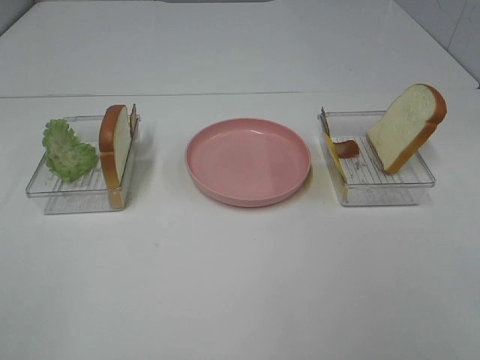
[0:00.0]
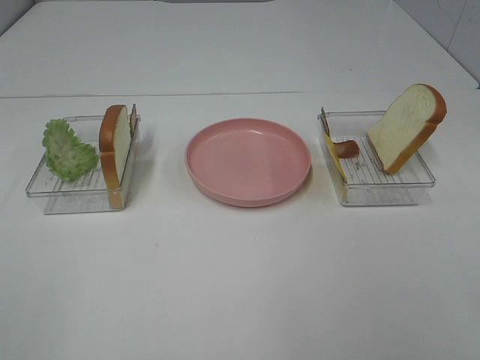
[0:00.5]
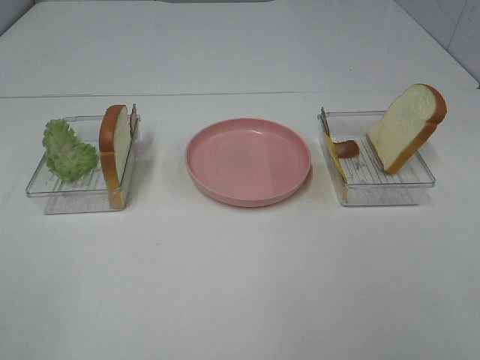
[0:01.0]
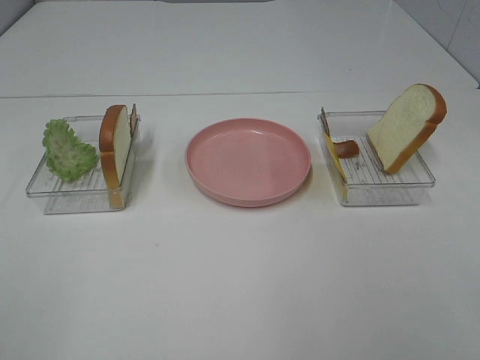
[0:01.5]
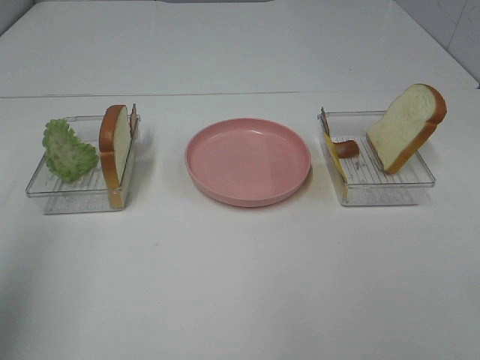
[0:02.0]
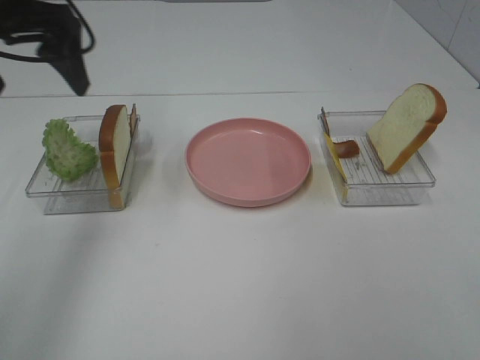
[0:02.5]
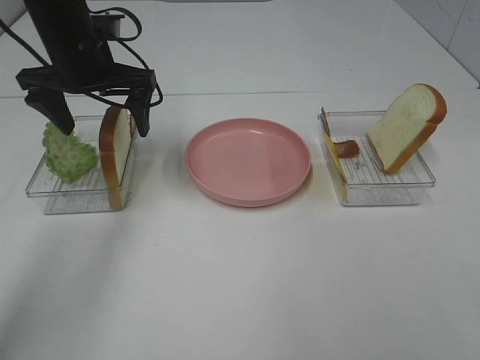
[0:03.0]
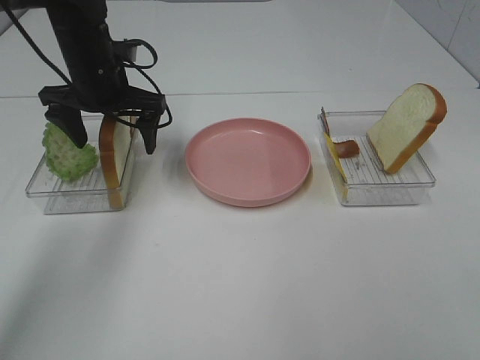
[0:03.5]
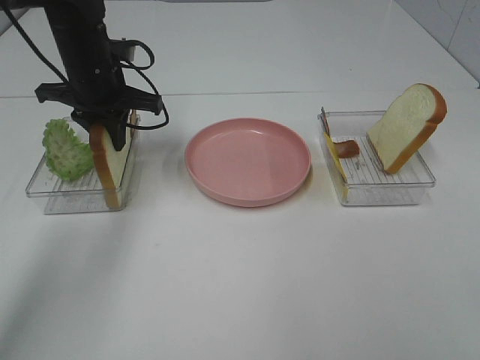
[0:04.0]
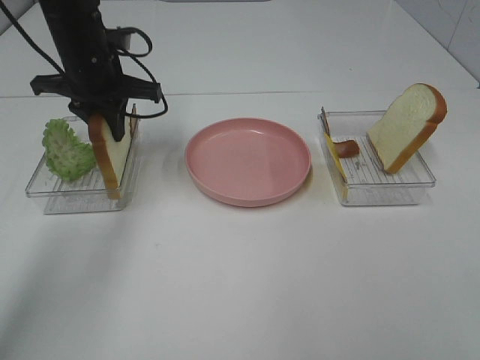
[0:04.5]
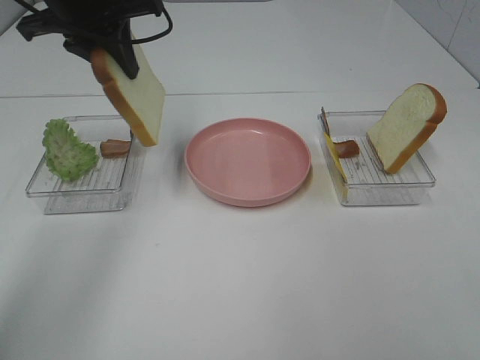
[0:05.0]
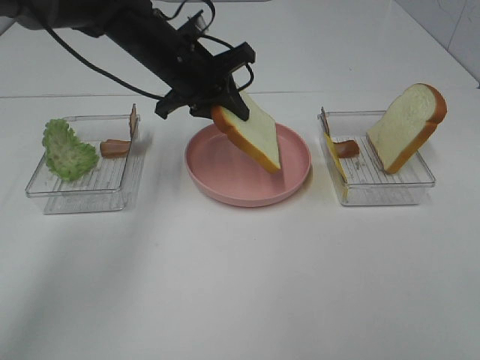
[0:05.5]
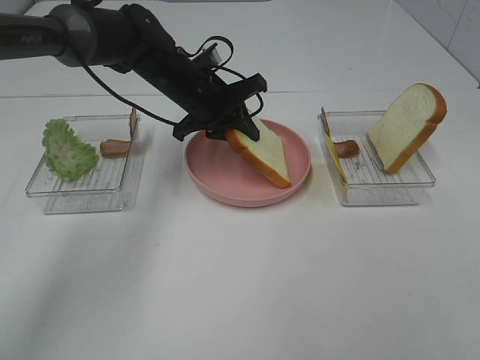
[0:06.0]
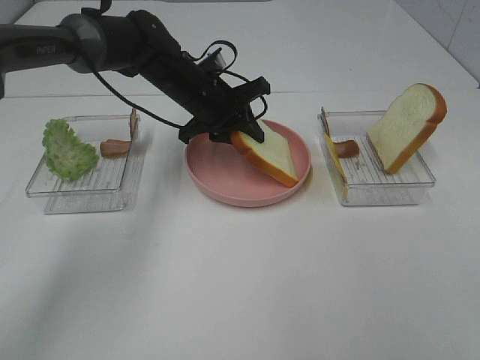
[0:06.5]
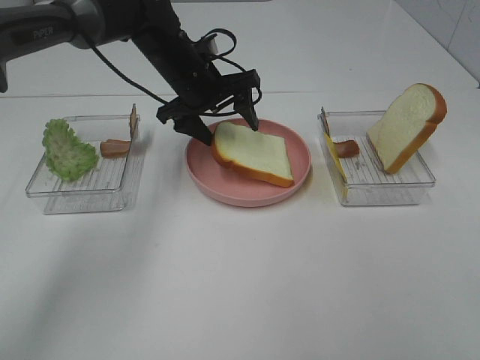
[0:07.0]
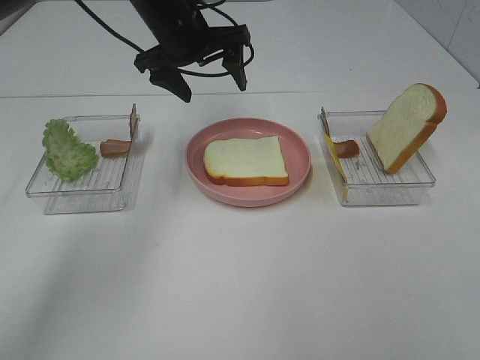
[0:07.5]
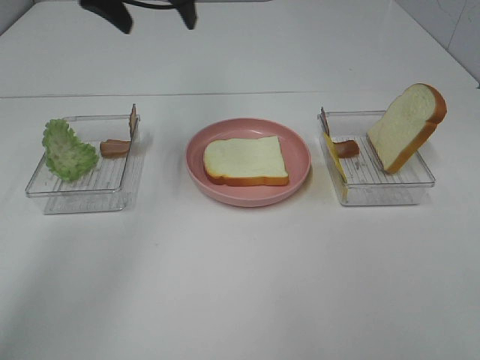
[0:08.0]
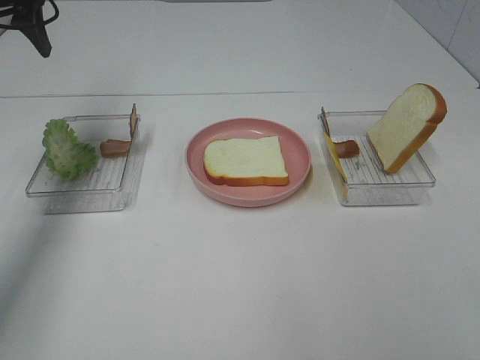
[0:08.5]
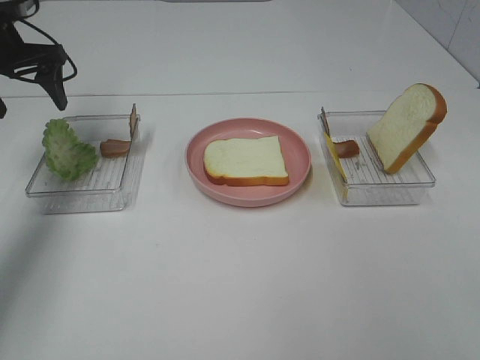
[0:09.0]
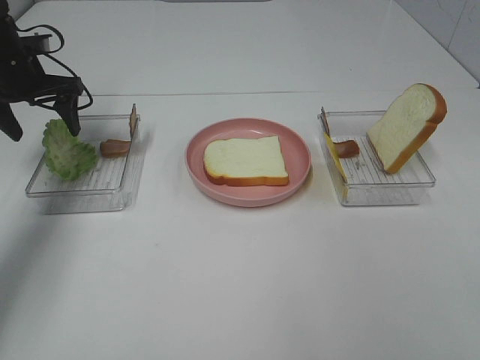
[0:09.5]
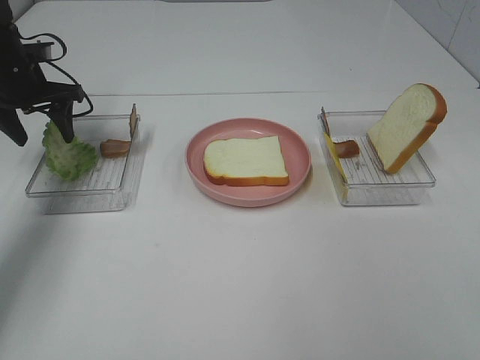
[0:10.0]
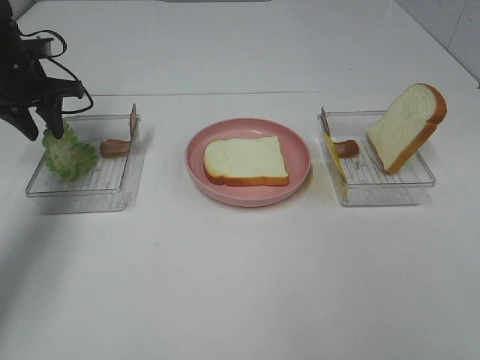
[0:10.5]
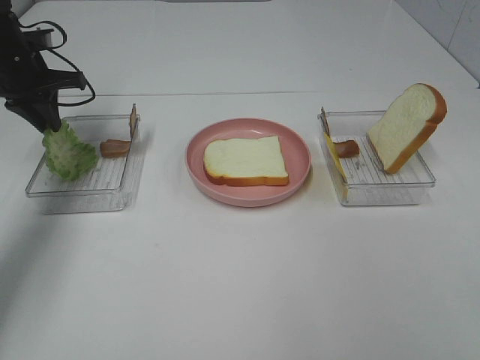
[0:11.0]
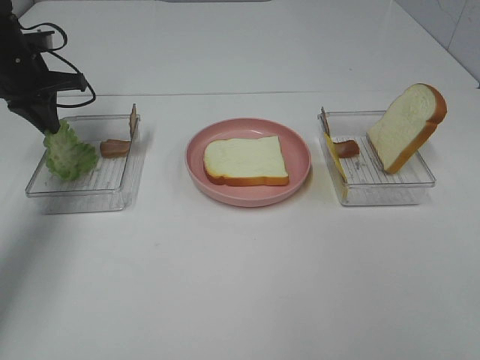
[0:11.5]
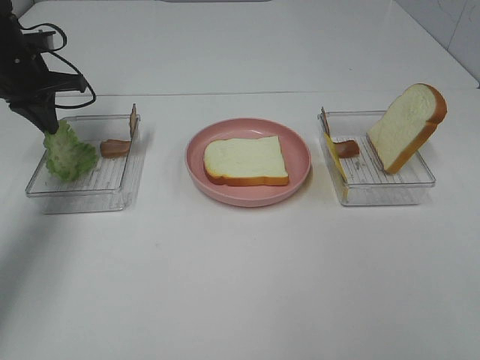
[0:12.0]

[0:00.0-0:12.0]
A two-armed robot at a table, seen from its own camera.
Task of the whole recording: Make sandwiches.
Step, 0:00.0 to 0:04.0: Left hand:grab the bread slice.
Step, 0:04.5 to 0:07.0: Left hand:place the bread slice on the plate.
Step, 0:07.5 to 0:11.5: Left hand:grab the lettuce slice.
0:00.0 to 0:02.0: The left gripper shifts some 20 cm forward and upward.
0:02.0 to 0:04.0: The left gripper is displaced forward, downward and to the right by approximately 35 cm, and closes up.
0:04.0 to 0:06.0: The left gripper travels to the right by approximately 10 cm, and reaches about 10 cm upward, then returns.
0:06.0 to 0:08.0: The left gripper moves upward and to the left, some 20 cm, and opens its fingers.
0:08.0 to 0:10.0: The left gripper is displaced downward and to the left by roughly 25 cm.
0:10.0 to 0:12.0: The left gripper closes its fingers.

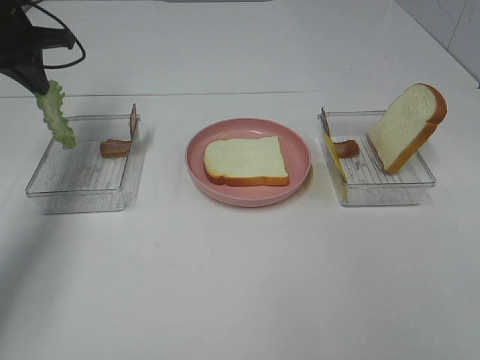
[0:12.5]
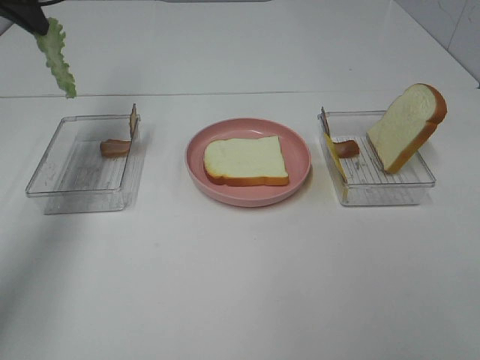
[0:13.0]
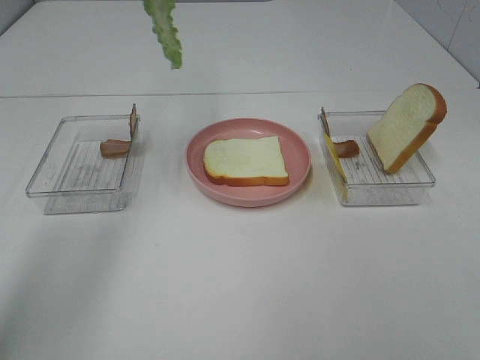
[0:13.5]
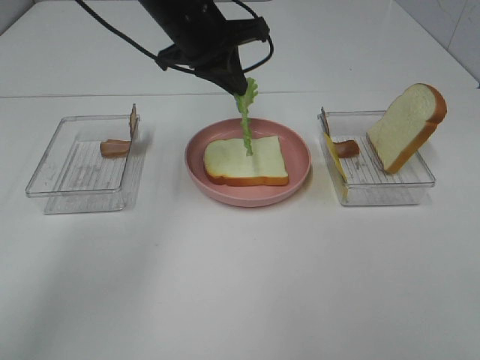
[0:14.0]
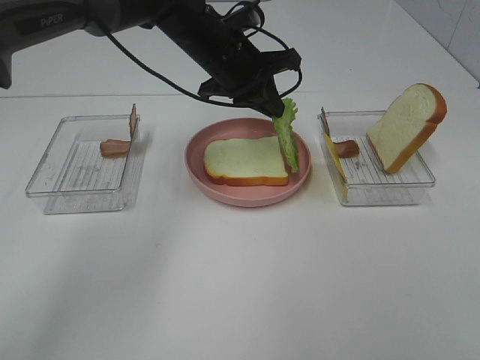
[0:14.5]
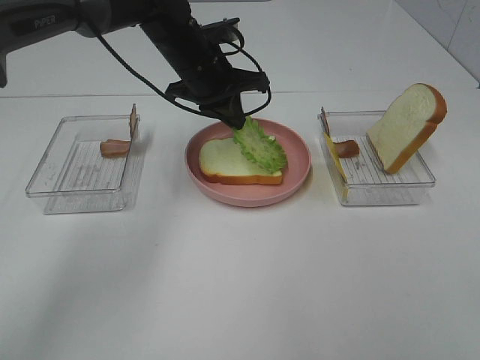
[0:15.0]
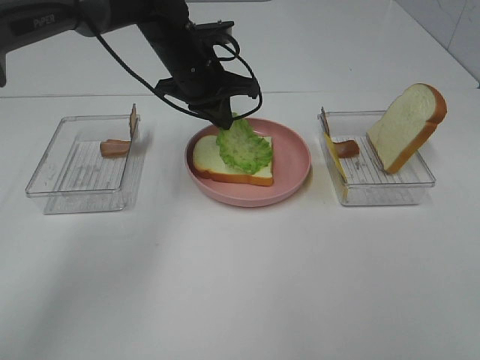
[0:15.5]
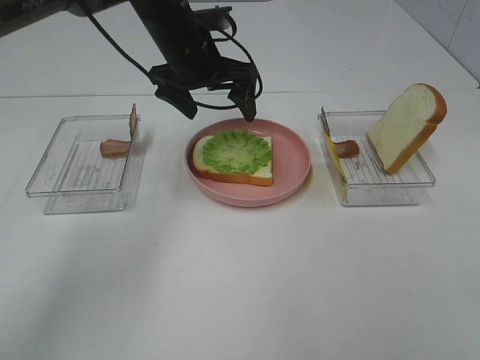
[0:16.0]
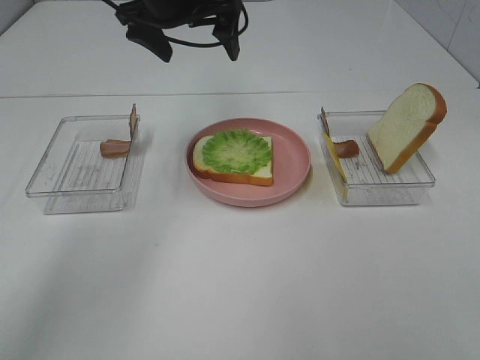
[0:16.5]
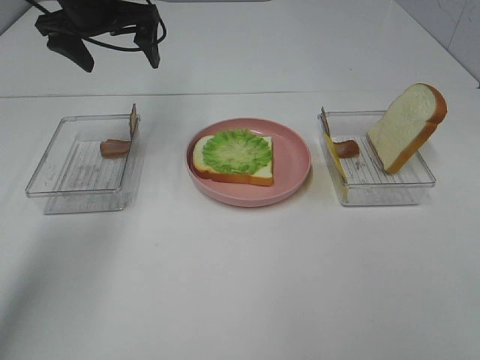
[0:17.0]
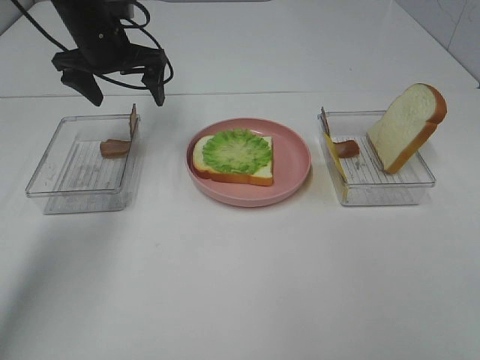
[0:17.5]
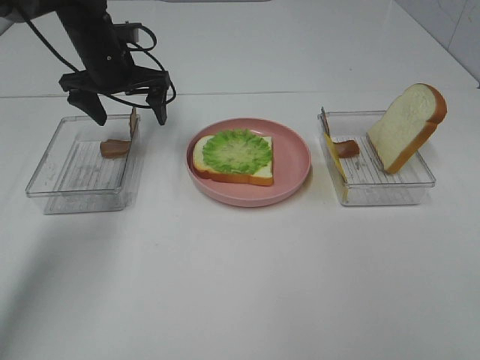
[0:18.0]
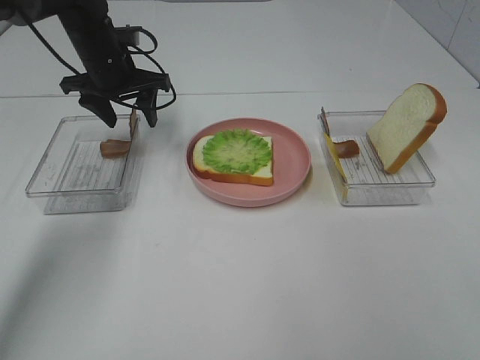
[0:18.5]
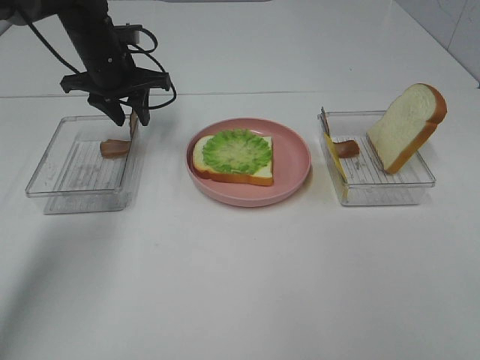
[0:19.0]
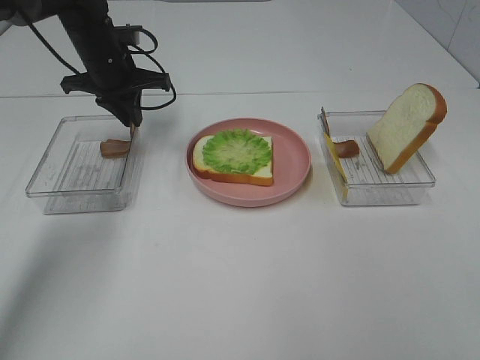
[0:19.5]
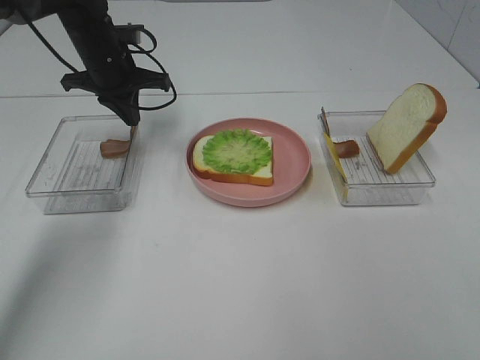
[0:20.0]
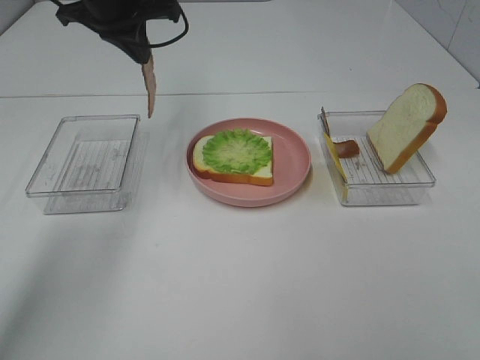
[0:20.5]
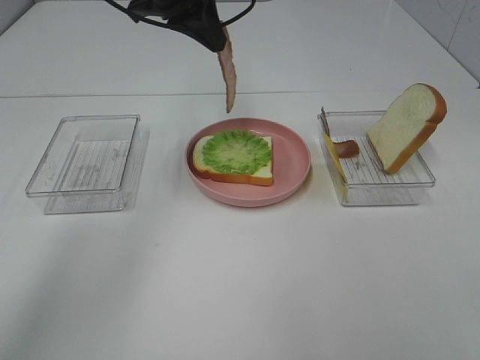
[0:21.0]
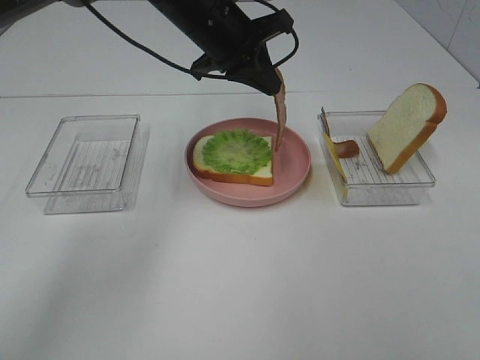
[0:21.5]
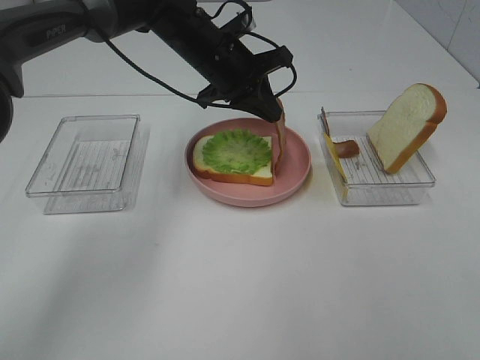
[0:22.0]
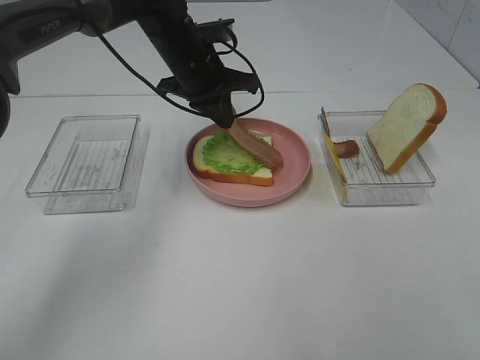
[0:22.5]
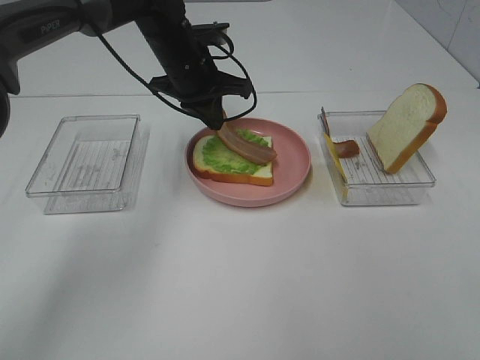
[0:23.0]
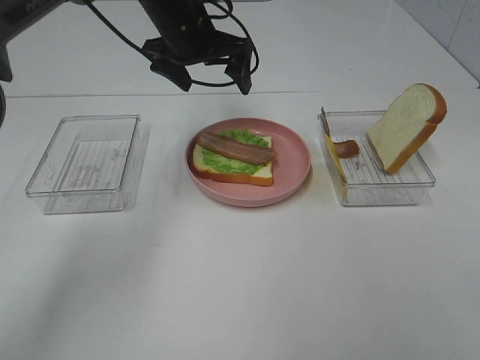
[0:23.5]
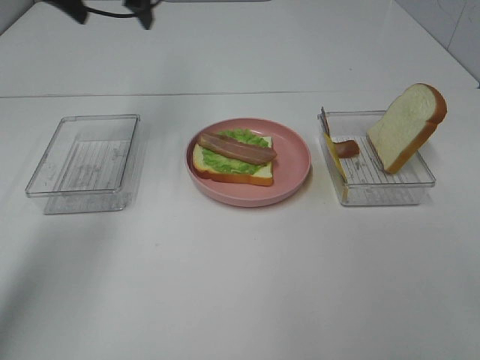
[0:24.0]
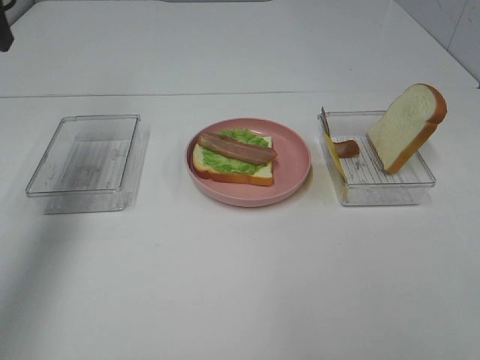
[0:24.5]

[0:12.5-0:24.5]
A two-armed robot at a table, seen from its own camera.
Task of the whole recording: Make sandwiches.
Step, 0:12.5 to 0:16.0: Left hand:place the lettuce slice on the bread slice.
Step, 0:16.5 to 0:20.0: Left hand:grab the bacon.
Step, 0:20.5 to 0:23.0: Left hand:place bacon on lettuce slice.
0:12.5 to 0:14.5: The left gripper moves to the right, some 30 cm.
0:14.5 to 0:16.5: The left gripper goes approximately 10 cm upward and to the left, and opens its fingers.
0:16.5 to 0:18.5: The left gripper heads downward and to the left, covering some 15 cm.
0:18.5 to 0:20.5: The left gripper is displaced upward by roughly 10 cm, and closes up.
0:20.5 to 0:22.5: The left gripper travels downward and to the right by approximately 15 cm.
0:22.5 to 0:24.5: The left gripper is displaced to the left, upward and backward by about 30 cm, and opens up.

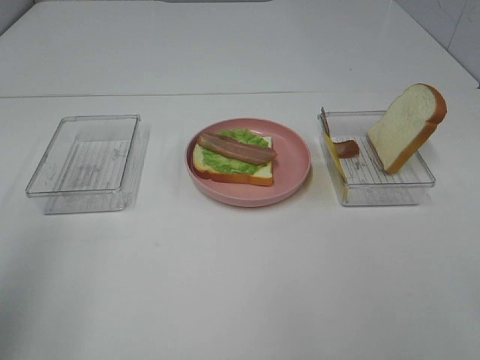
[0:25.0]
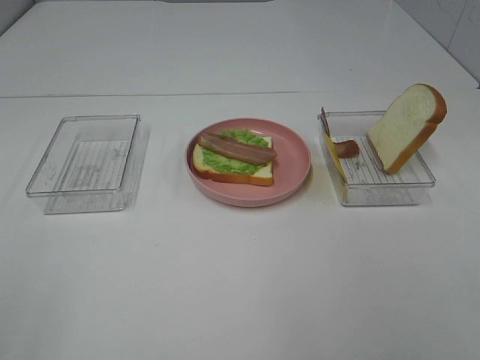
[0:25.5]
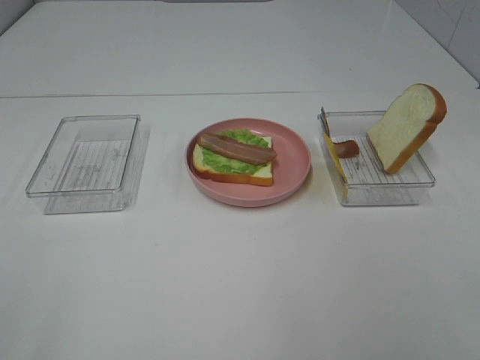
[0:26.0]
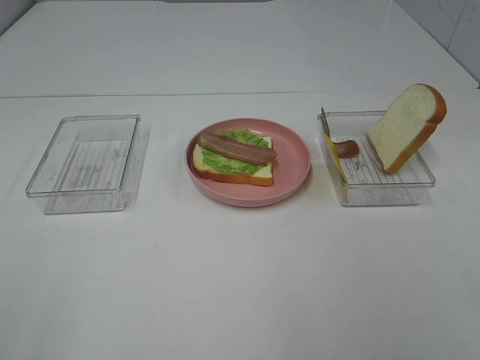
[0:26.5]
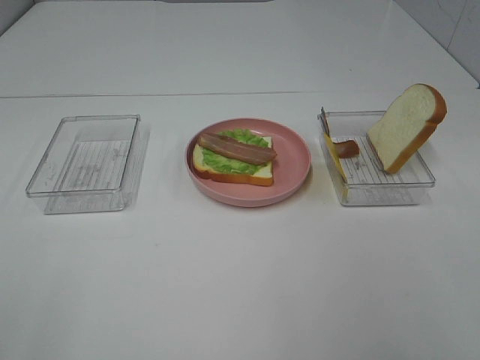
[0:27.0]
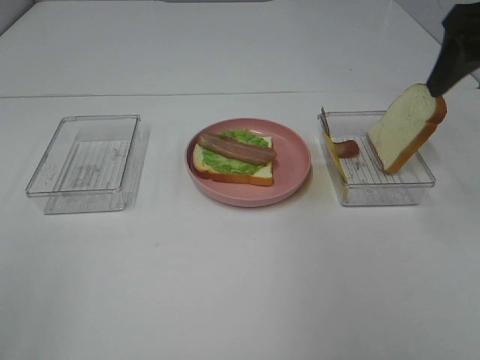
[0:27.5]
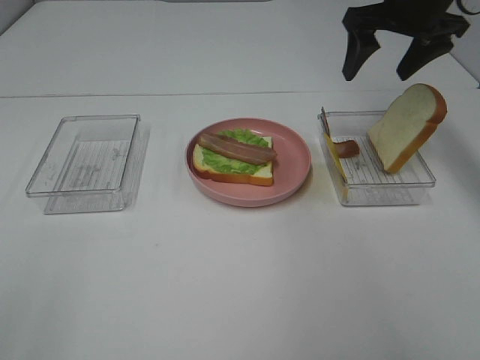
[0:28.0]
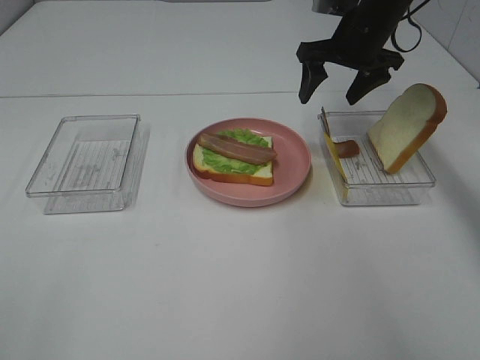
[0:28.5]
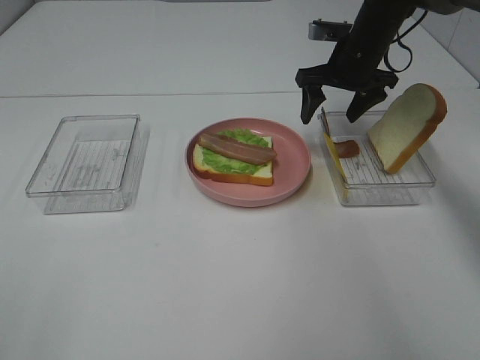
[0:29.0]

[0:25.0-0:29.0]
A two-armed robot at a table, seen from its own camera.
Task of the whole recording: Make sandwiches.
0:27.0 to 0:29.0: The right gripper goes about 40 cm forward.
